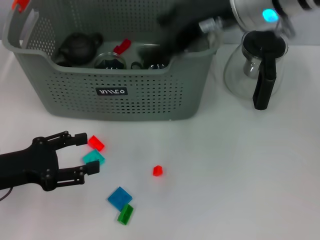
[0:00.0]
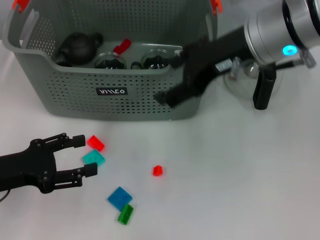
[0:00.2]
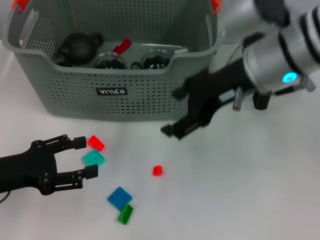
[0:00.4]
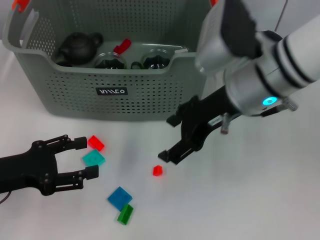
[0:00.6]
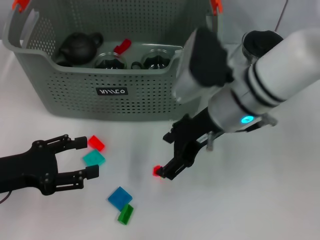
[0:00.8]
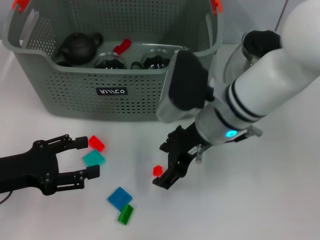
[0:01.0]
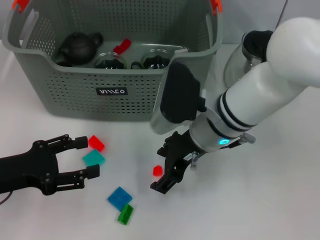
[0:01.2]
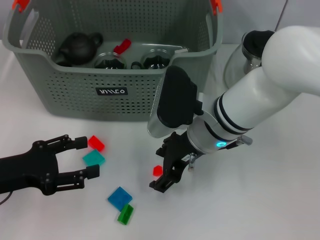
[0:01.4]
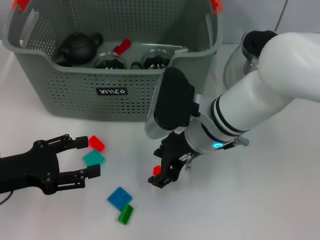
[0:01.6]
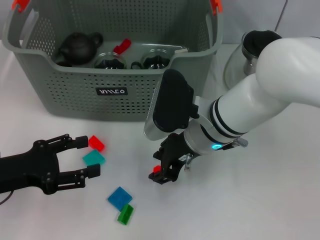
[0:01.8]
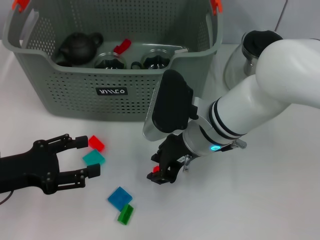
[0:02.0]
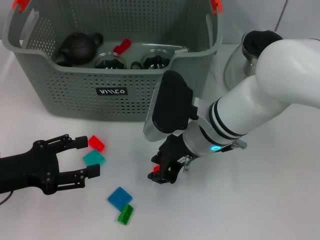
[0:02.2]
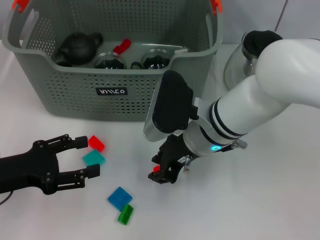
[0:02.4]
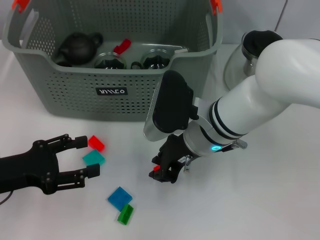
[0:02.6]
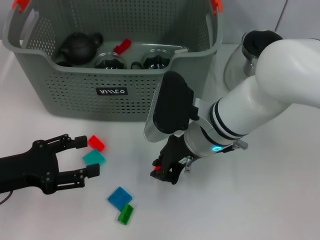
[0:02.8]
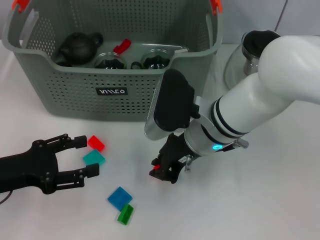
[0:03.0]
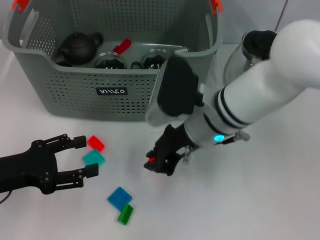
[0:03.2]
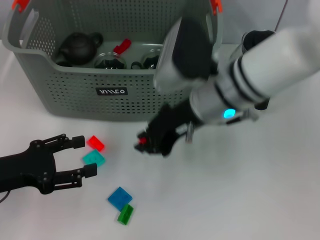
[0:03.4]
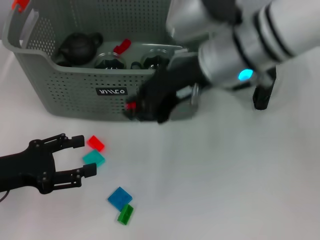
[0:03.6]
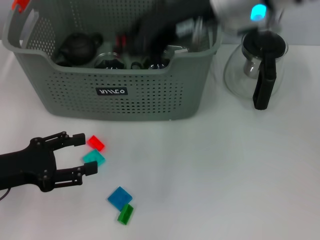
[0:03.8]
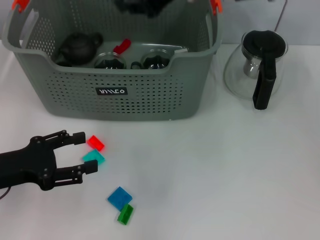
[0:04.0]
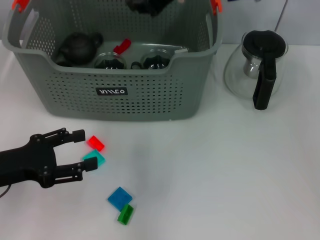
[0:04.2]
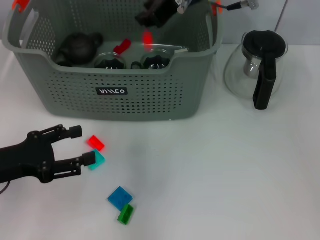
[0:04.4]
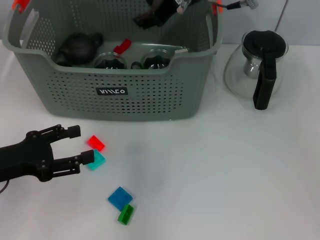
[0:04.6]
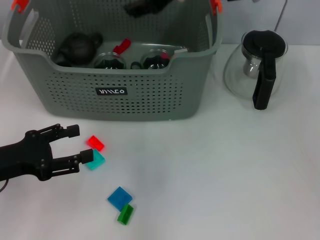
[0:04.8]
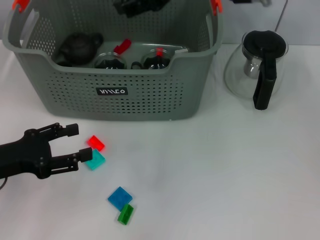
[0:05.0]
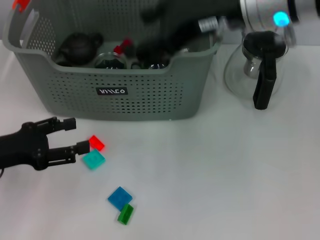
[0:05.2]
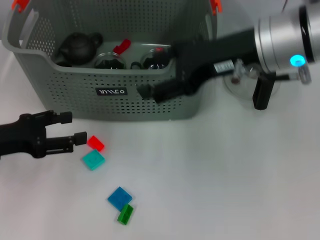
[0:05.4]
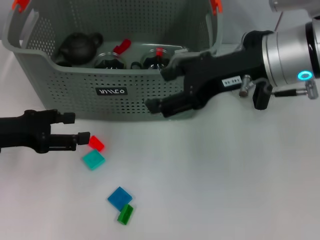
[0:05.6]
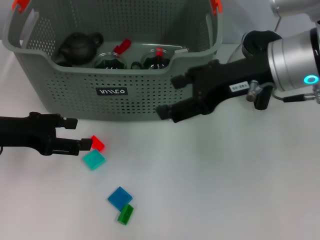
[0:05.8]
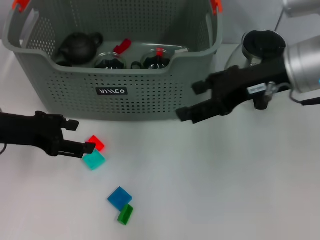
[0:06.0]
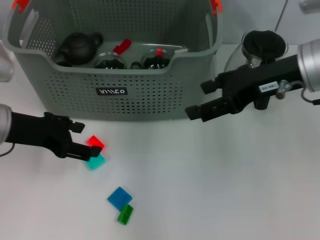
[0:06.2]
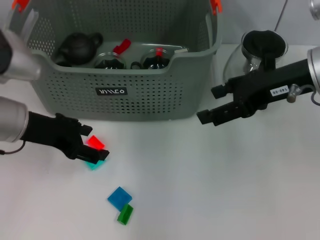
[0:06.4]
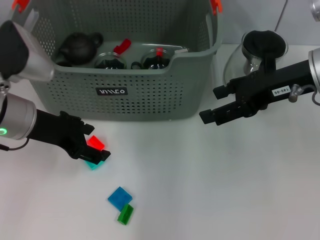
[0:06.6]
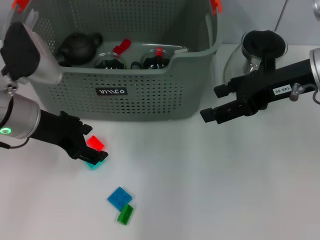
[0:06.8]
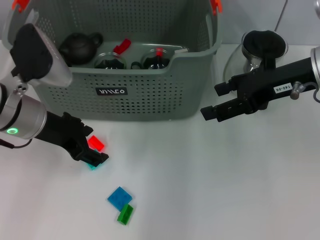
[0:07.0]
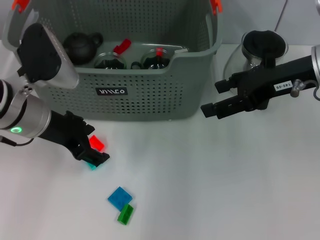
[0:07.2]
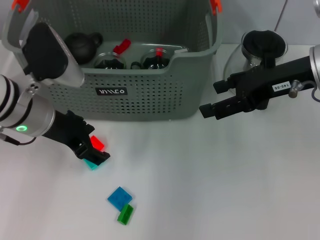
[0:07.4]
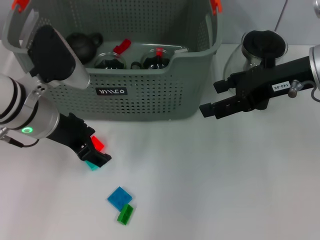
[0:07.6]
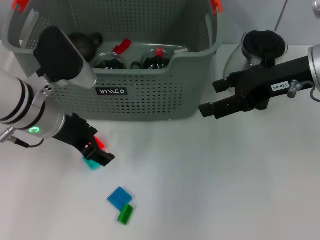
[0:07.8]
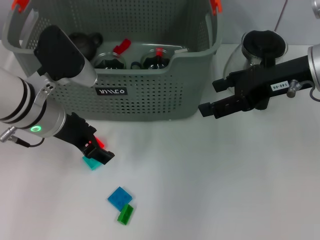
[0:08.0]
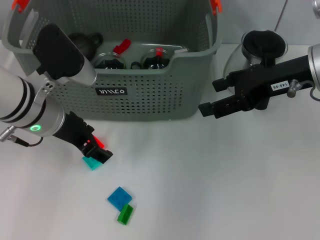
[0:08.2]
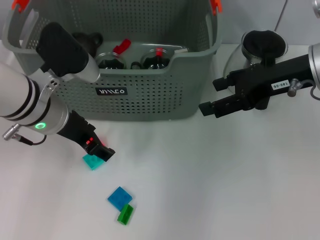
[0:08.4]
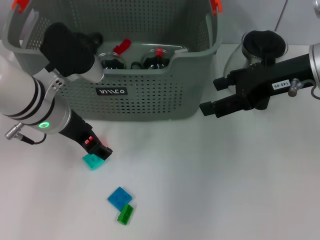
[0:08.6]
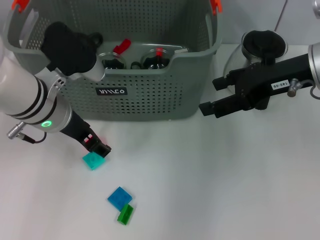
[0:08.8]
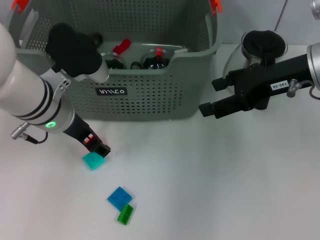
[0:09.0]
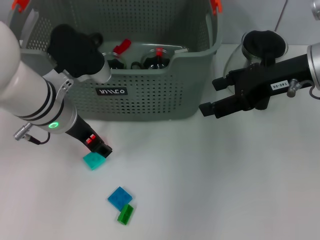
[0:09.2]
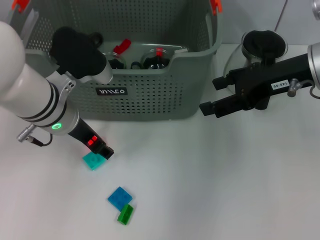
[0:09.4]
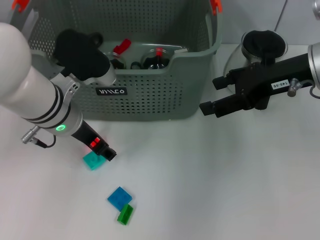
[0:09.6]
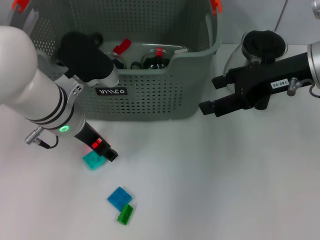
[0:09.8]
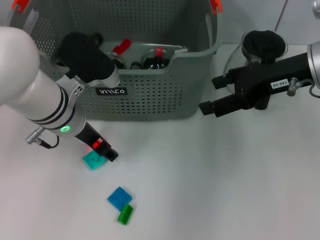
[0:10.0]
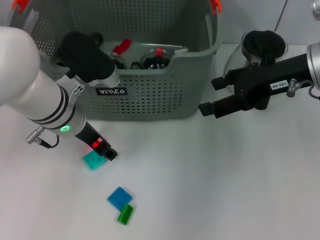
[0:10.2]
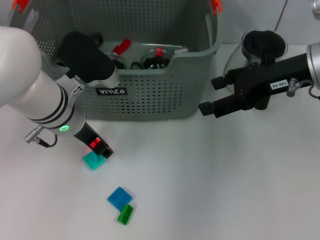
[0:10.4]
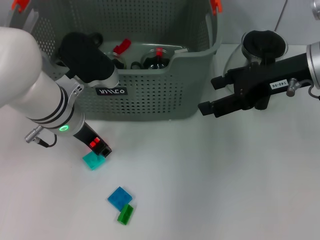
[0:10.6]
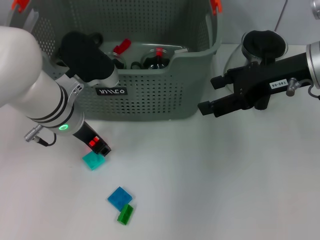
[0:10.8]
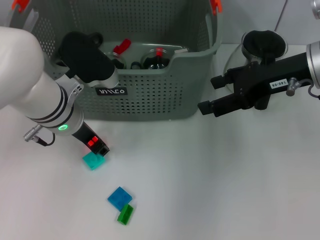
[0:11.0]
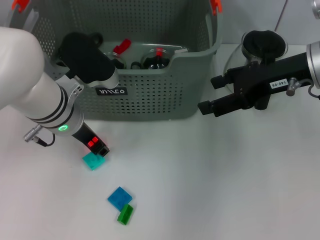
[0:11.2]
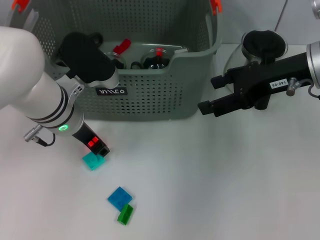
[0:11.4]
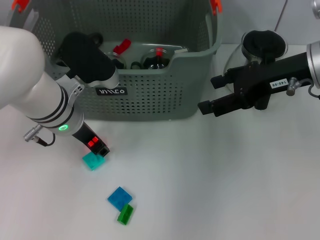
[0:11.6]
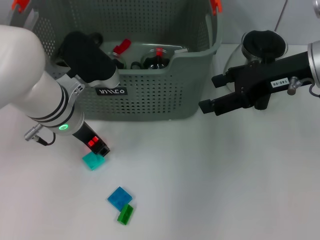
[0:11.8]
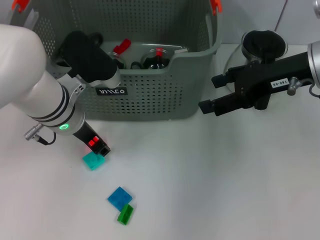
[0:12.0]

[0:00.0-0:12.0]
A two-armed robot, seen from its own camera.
Task of the whole recording: pick up the teacup on the table and place it into the storage bin, pick up the block on the table and place it into the storage bin.
Step, 0.0 to 2.6 s: Grasp the orange block with right gripper.
Step, 3.0 to 4.4 s: Place the orange block in the storage box with right gripper.
0.0 to 1.6 s: The right gripper shifts some 15 cm downward.
1.6 to 3.0 s: The right gripper closes its fingers.
3.0 to 4.4 s: The right gripper travels upward and forward by approximately 20 cm.
4.4 to 6.0 s: The right gripper heads to the right and backward, covering about 15 cm, and opens. The left gripper travels forward and upward by roughly 10 cm.
6.0 to 7.6 s: The left gripper goes approximately 10 cm to the right.
7.6 to 10.4 s: There are only small adjustments of the grippers.
10.4 to 12.0 s: Neither gripper changes place.

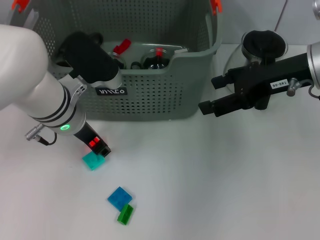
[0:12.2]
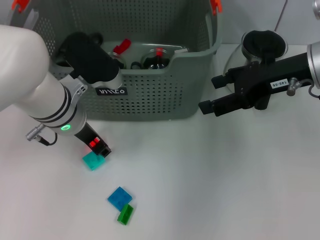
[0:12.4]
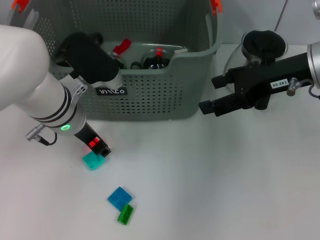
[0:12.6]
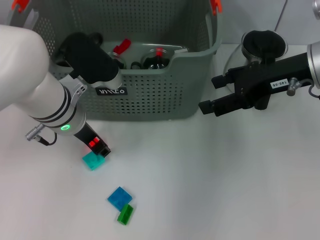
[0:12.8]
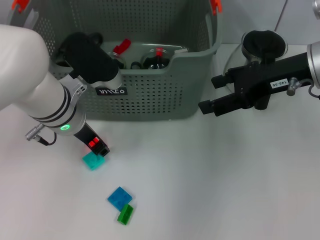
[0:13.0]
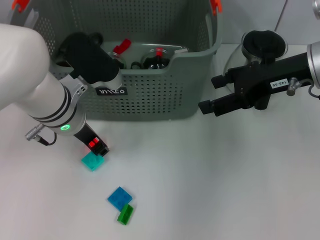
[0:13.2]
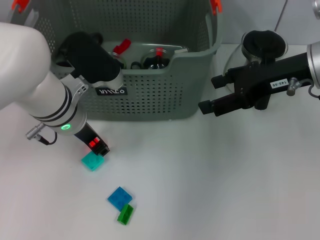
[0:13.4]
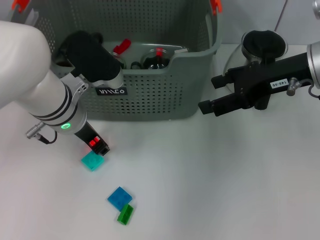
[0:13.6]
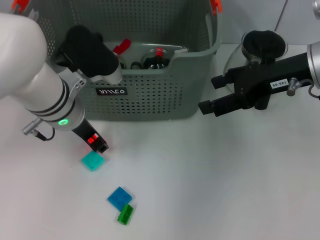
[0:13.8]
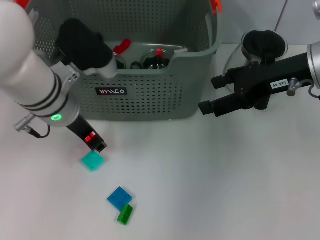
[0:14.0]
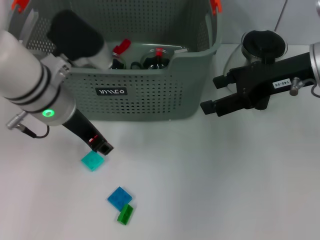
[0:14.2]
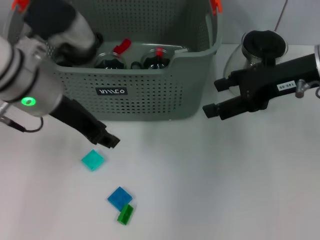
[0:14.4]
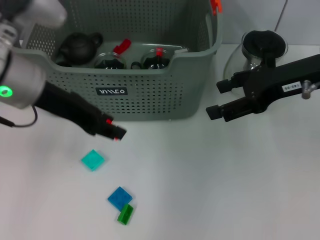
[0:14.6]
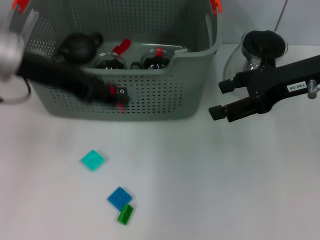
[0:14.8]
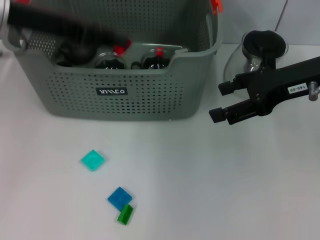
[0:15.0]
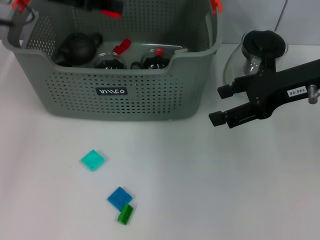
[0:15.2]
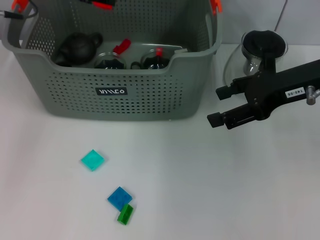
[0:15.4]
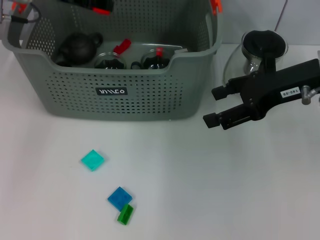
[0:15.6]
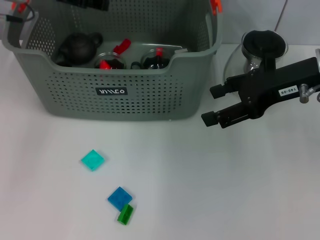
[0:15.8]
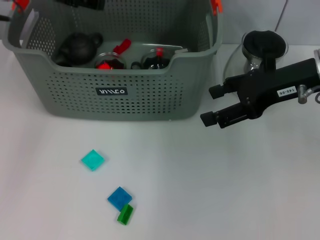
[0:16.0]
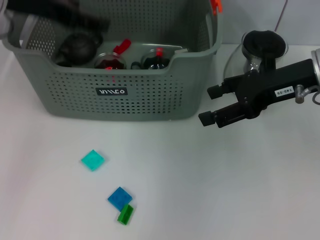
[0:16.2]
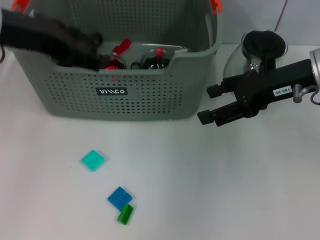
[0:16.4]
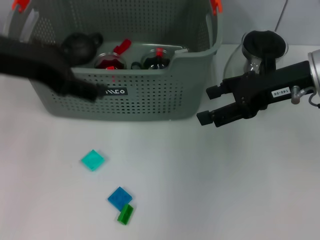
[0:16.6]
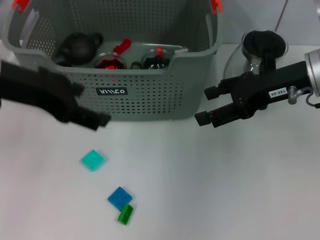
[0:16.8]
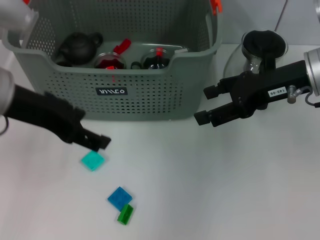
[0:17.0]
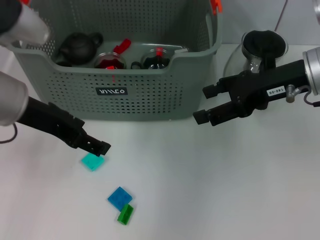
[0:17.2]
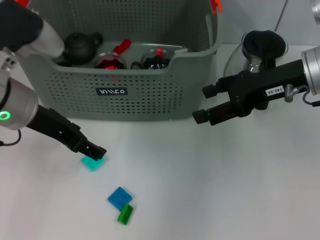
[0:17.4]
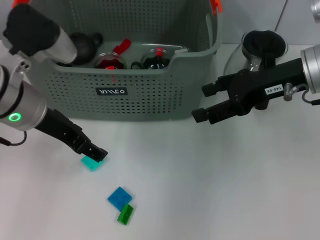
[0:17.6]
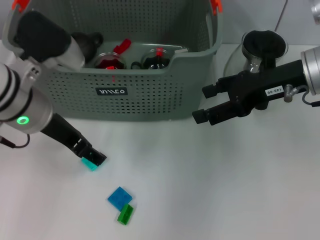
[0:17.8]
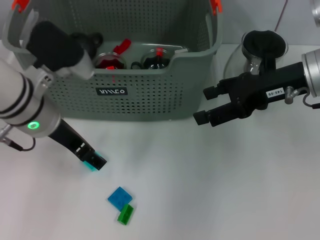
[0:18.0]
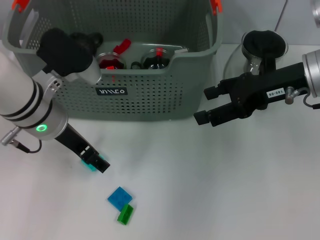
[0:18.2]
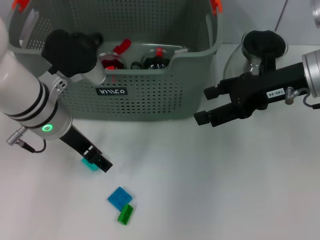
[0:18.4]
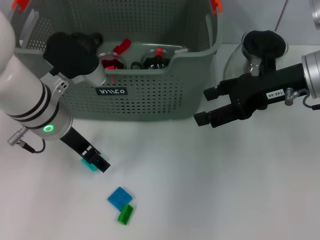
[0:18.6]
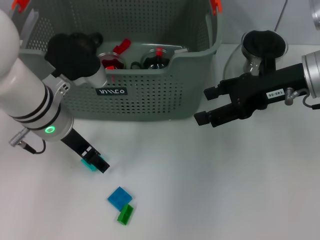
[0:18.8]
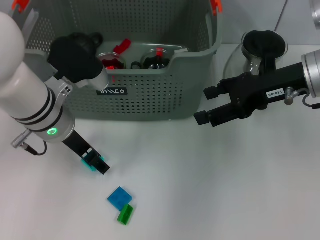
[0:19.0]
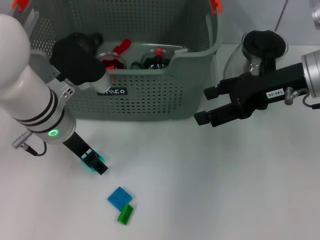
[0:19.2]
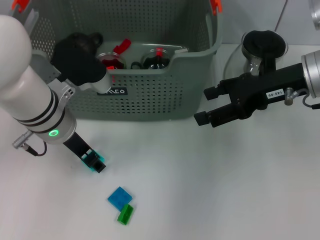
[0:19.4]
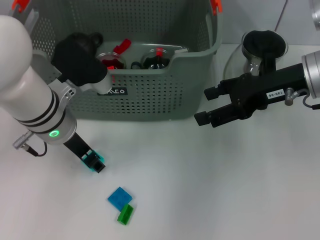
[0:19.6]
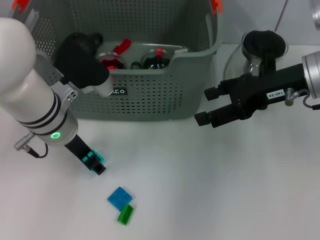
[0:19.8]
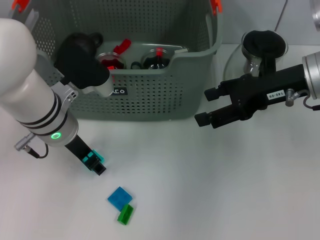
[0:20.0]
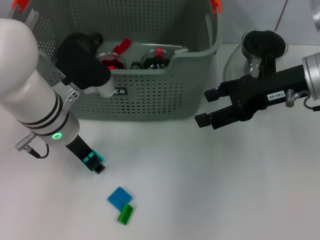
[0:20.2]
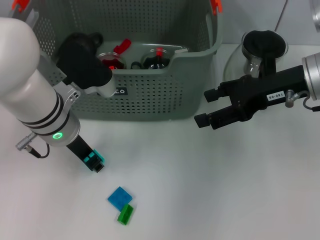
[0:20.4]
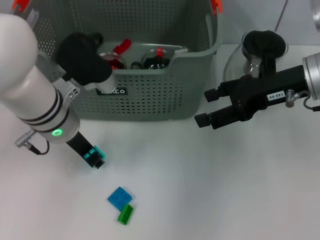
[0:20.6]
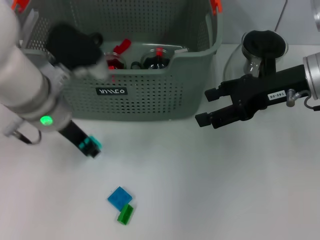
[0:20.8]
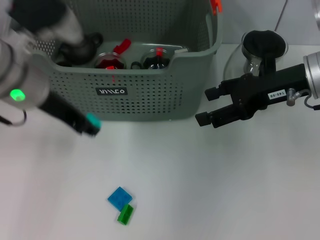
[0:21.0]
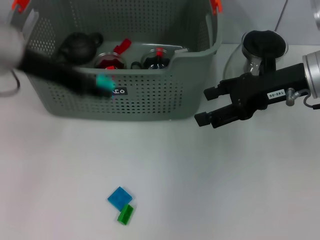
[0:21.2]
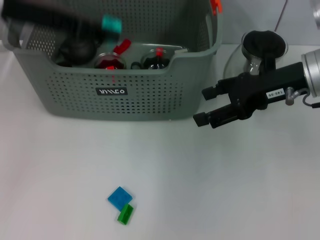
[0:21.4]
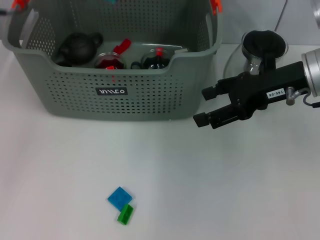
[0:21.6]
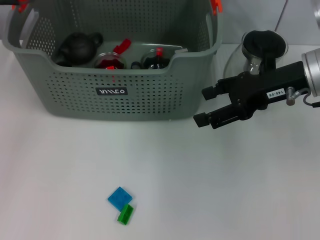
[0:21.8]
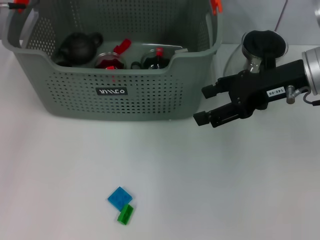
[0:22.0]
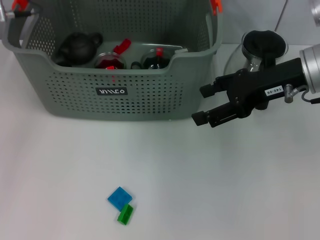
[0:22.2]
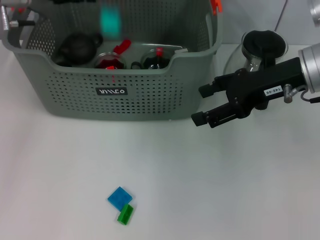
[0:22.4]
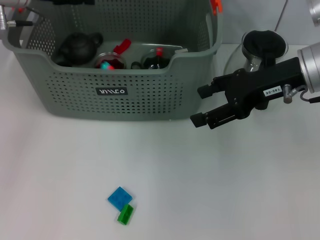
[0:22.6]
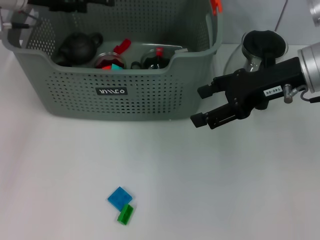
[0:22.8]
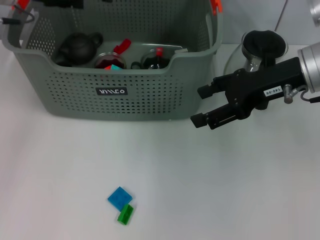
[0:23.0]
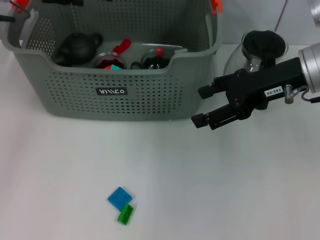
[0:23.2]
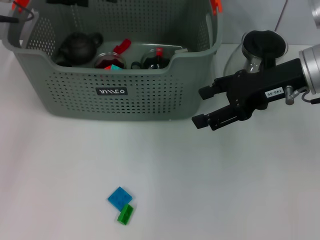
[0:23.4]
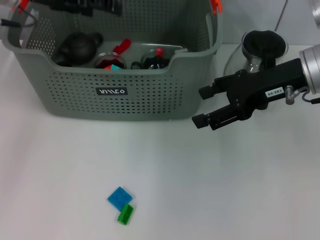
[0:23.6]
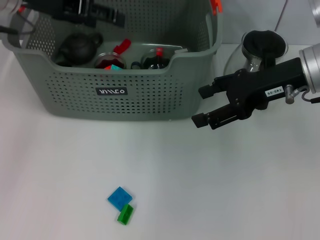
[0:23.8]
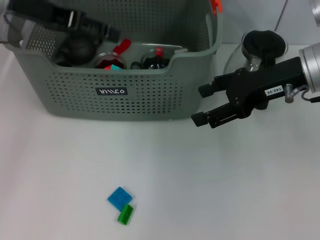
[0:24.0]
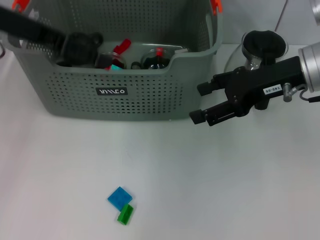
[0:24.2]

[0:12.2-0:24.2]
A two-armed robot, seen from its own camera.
Task of the whole recording: pick up the teacup on the table and place it into the storage bin, pick up the block on the table and place it into the storage bin.
Step, 13.2 to 15.8 s: Place the orange block in the storage box with left gripper.
Step, 16.0 to 20.2 s: Grasp the light blue block with left gripper.
Step, 20.6 to 22.6 s: Place the light blue block in the storage box with left gripper.
12.2 to 13.8 s: Both grippers stay put.
13.8 to 15.2 s: The left gripper shifts about 15 cm upward, to the left and forward.
15.2 to 16.6 s: The left gripper goes some 10 cm backward, and opens up.
16.6 to 18.2 s: The left gripper goes some 15 cm downward.
18.2 to 19.8 s: There are only small adjustments of the grippers.
19.8 to 21.2 s: The left gripper travels upward by some 15 cm.
21.2 to 22.6 s: The left gripper goes approximately 10 cm forward.
22.6 to 24.2 s: The left gripper travels backward by about 10 cm, and opens.
